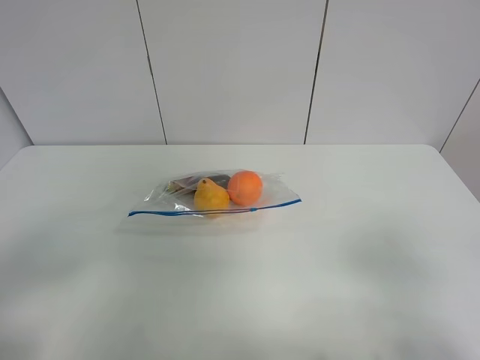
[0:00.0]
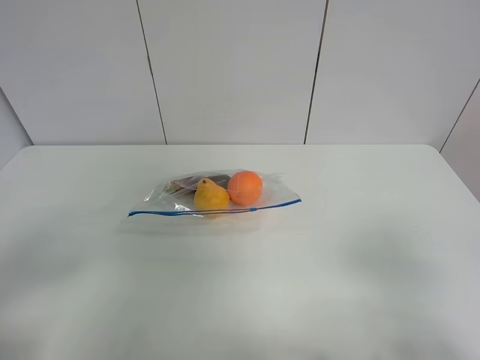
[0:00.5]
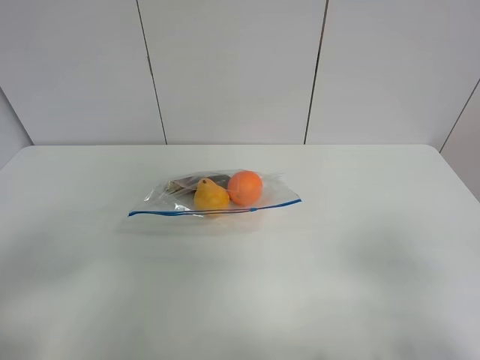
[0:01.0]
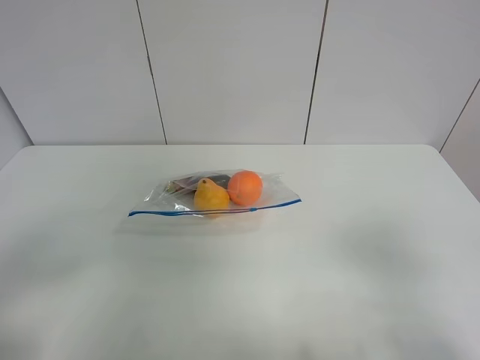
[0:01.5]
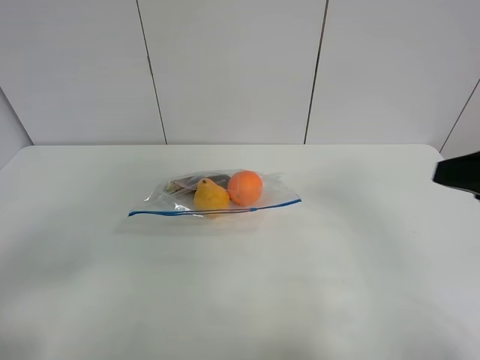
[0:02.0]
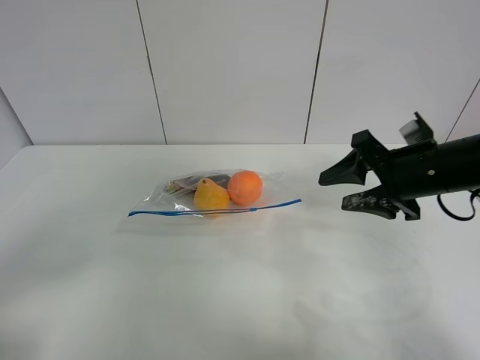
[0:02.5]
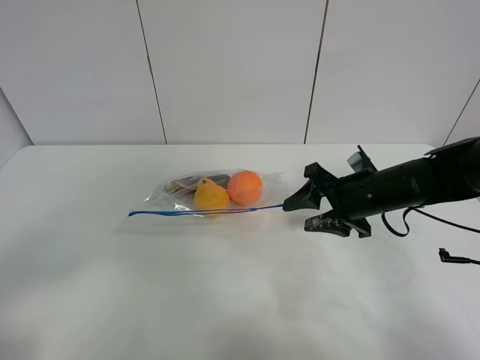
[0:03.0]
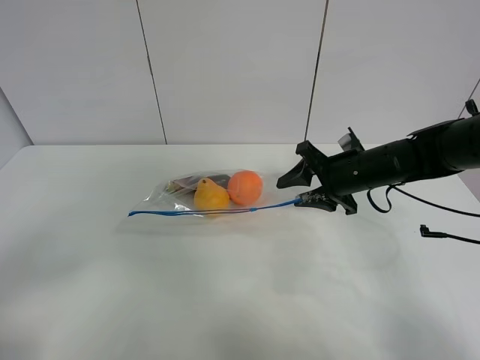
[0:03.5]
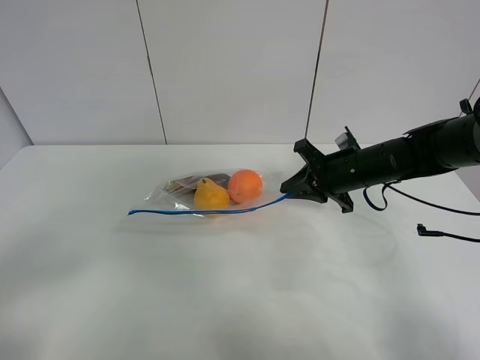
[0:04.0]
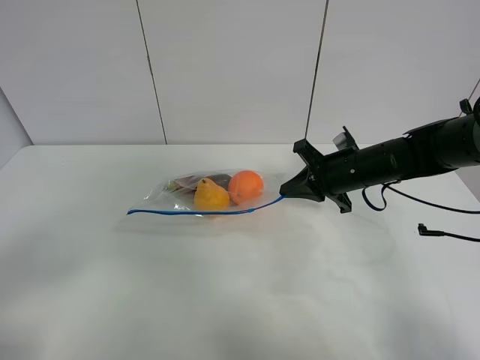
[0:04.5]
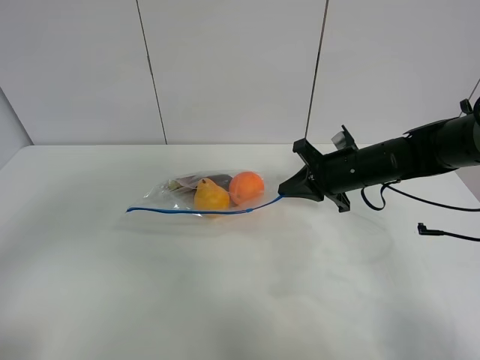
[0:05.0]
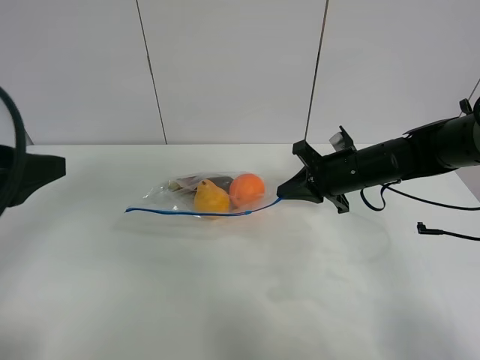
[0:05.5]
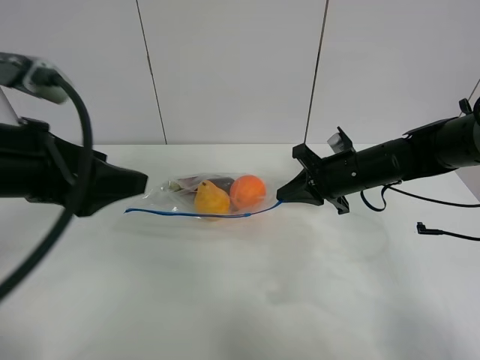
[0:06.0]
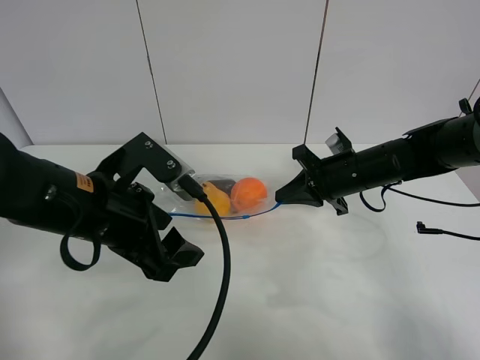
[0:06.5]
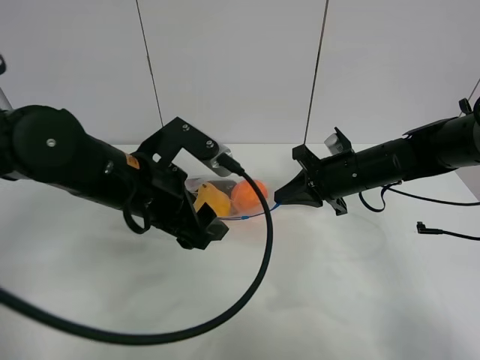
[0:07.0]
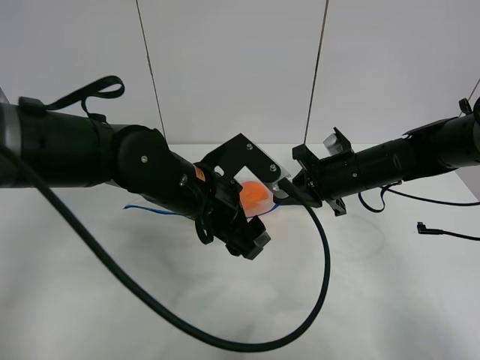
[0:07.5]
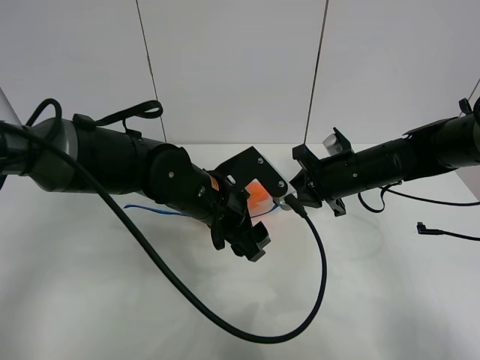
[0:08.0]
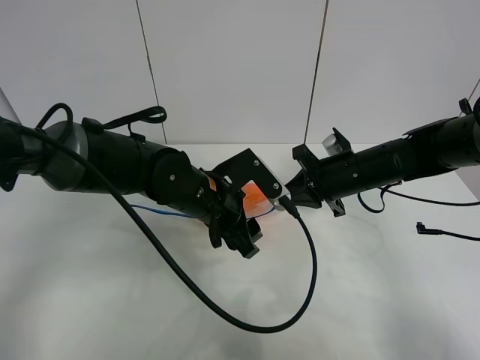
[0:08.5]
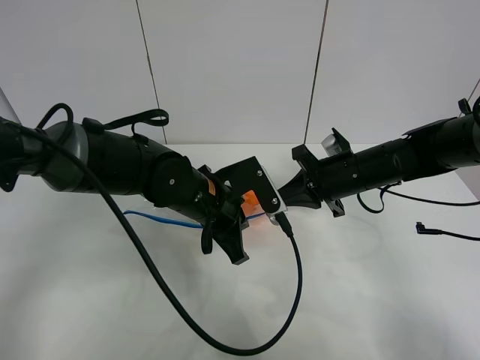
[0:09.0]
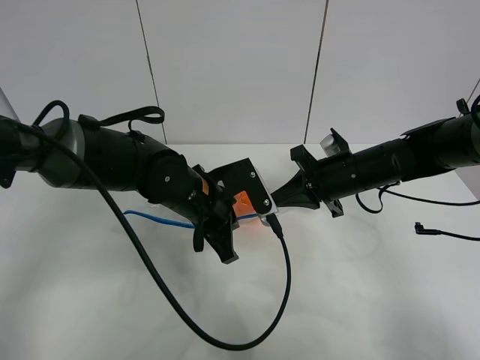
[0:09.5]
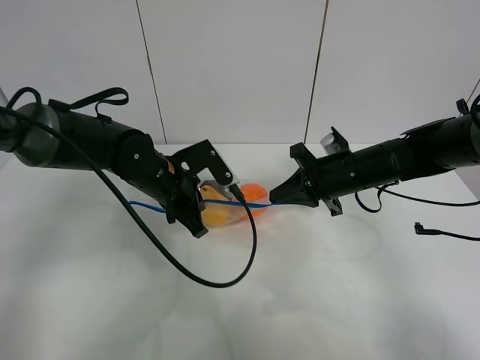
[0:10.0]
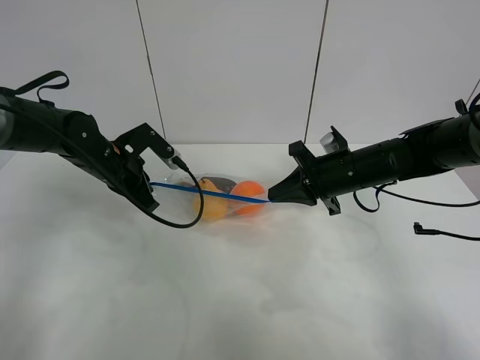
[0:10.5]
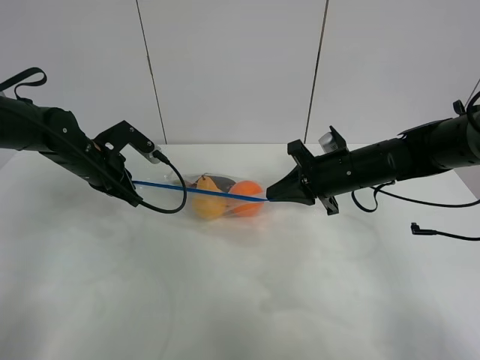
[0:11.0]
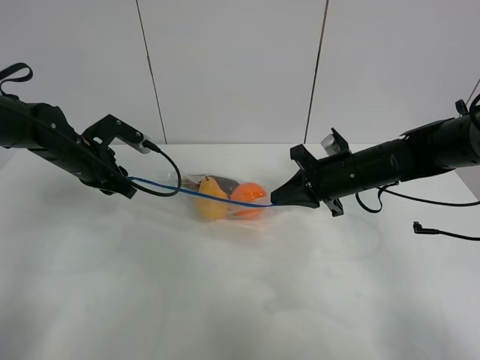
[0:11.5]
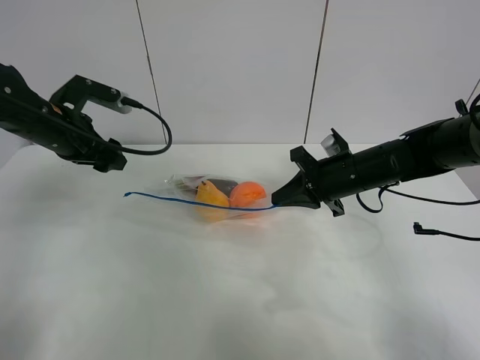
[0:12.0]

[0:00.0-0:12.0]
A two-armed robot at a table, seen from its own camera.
Step, 0:00.0 to 0:04.0: Grasp the fruit bag with right gripper.
Step, 0:04.5 to 0:11.5: Pull the fruit bag with left gripper.
0:00.0 to 0:02.0: The right gripper goes about 15 cm forward.
0:02.0 to 0:04.0: The right gripper is displaced forward and downward by approximately 25 cm, and closes up.
0:04.0 to 0:06.0: The left gripper travels forward and to the right by about 20 cm.
0:06.0 to 0:08.0: The left gripper moves to the right, downward and forward, some 25 cm.
0:08.0 to 0:10.0: The left gripper travels to the left and forward by some 10 cm, and closes.
0:10.0 to 0:12.0: The left gripper shifts approximately 15 cm to the left and upward, and opens.

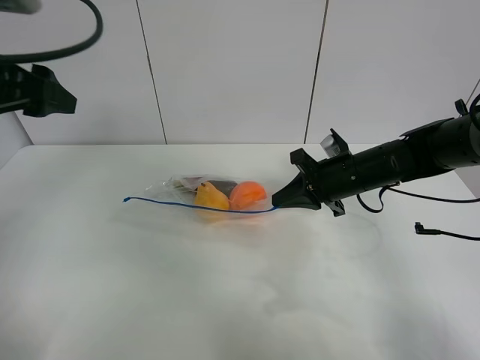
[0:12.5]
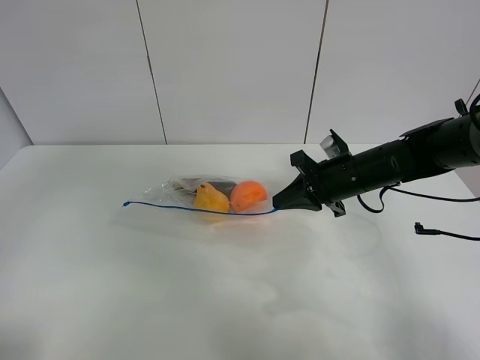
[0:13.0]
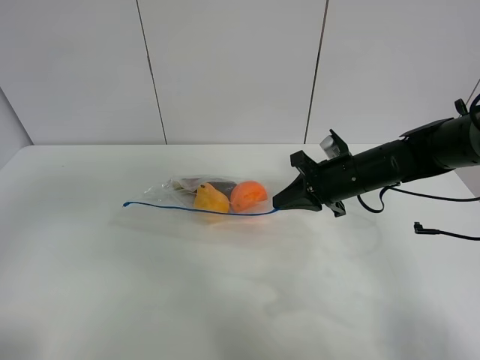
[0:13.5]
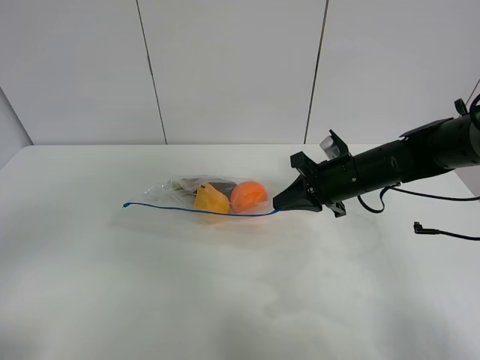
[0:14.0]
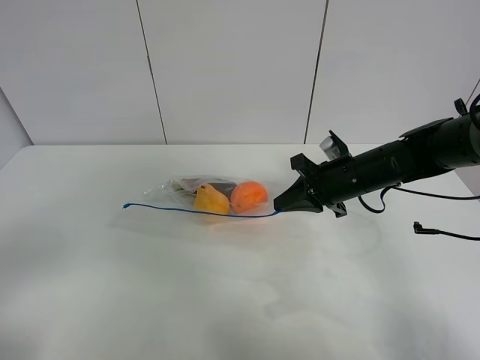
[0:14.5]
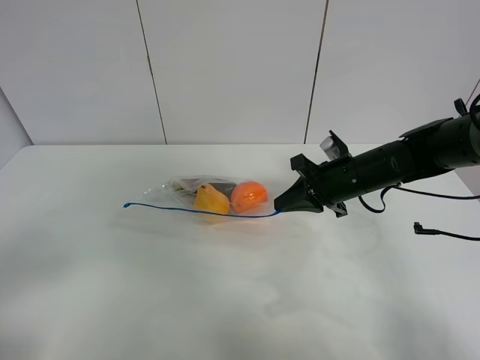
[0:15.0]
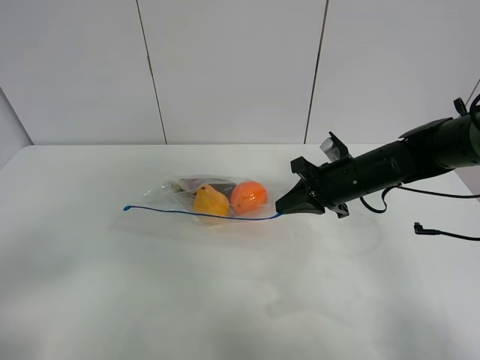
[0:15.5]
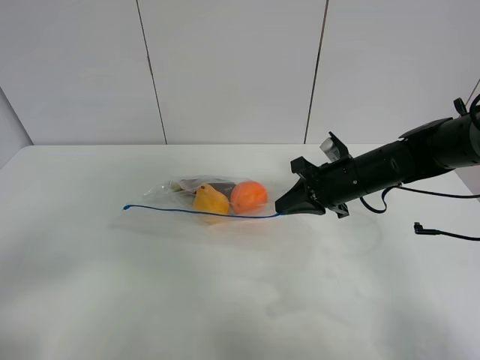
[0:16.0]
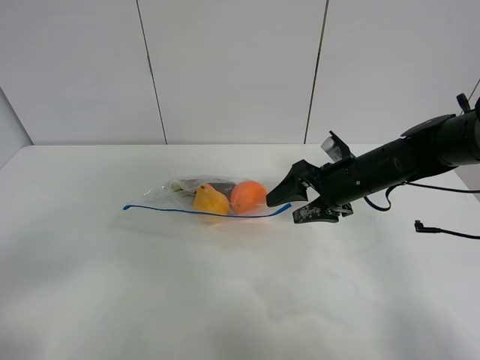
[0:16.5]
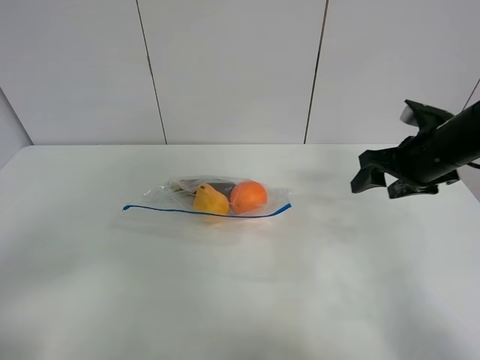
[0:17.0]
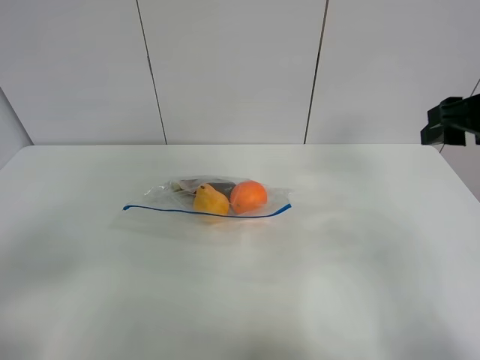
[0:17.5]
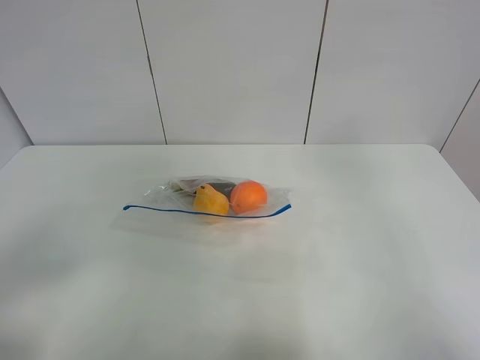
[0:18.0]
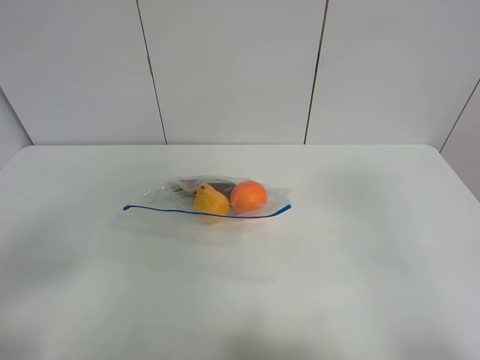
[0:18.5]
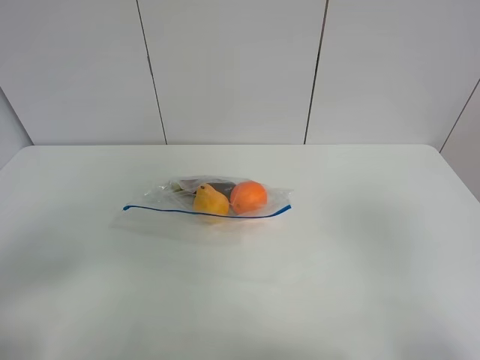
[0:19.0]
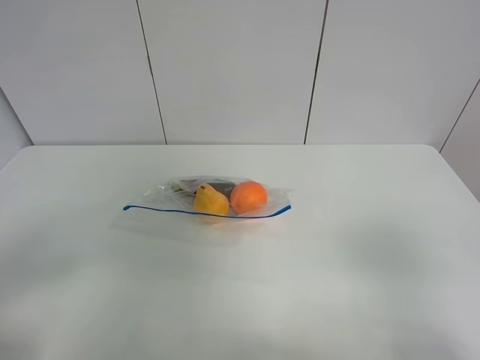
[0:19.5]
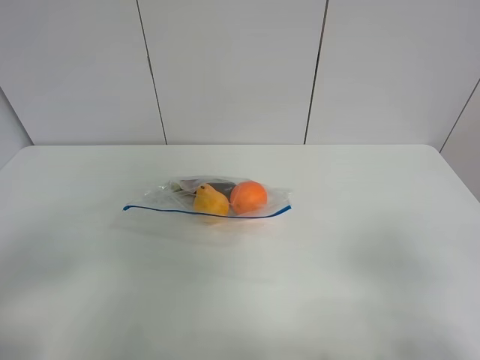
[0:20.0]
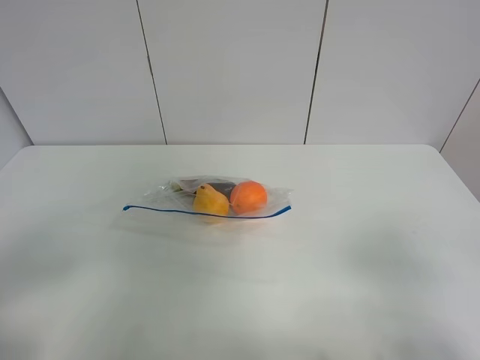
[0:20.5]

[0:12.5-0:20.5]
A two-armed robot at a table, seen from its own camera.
0:12.5 to 0:14.5: The left gripper shifts about 25 cm backward.
0:14.5 to 0:16.5: The right gripper opens up.
0:16.5 to 0:18.5: The right gripper goes some 40 cm backward and upward.
0:18.5 to 0:20.5: The right gripper is displaced downward by approximately 15 cm.
